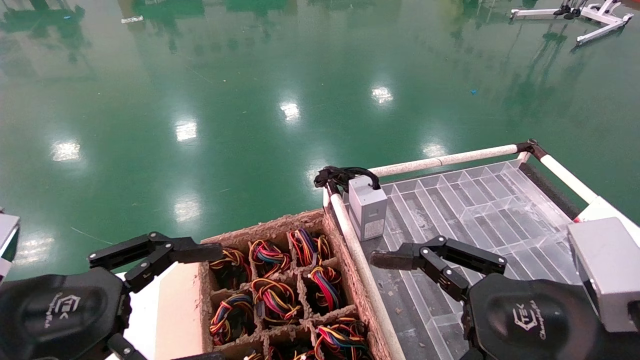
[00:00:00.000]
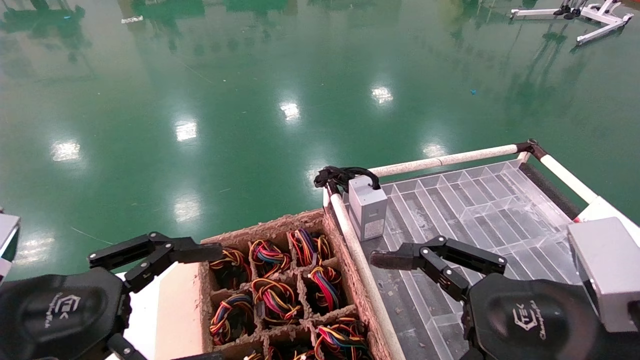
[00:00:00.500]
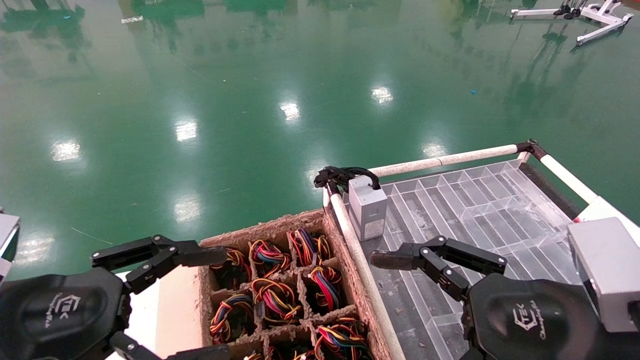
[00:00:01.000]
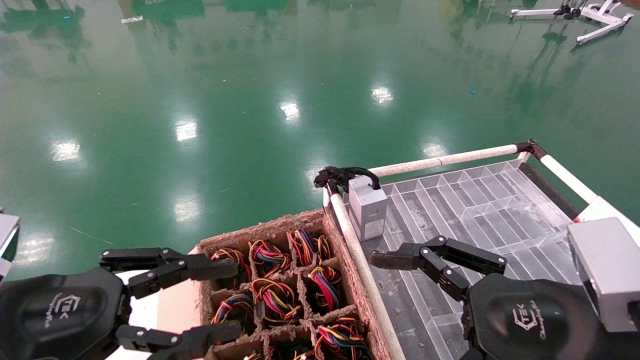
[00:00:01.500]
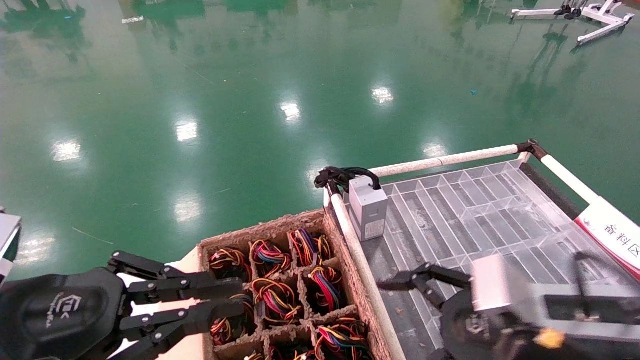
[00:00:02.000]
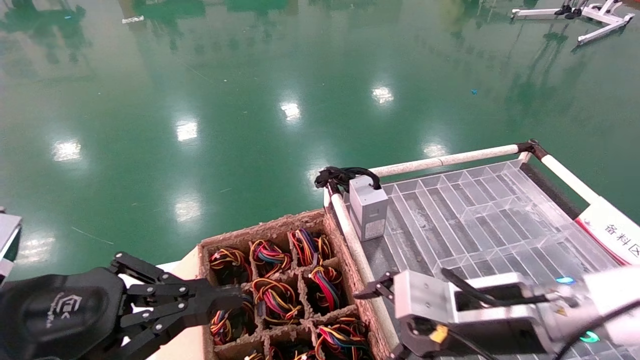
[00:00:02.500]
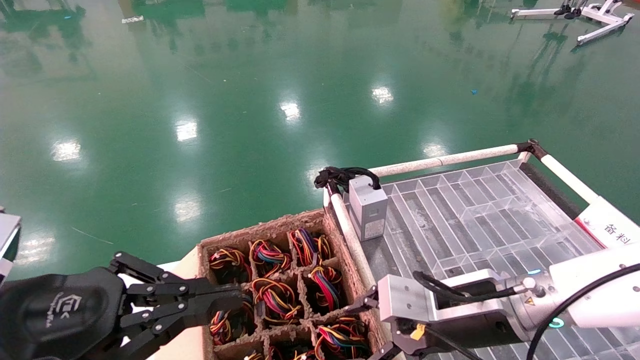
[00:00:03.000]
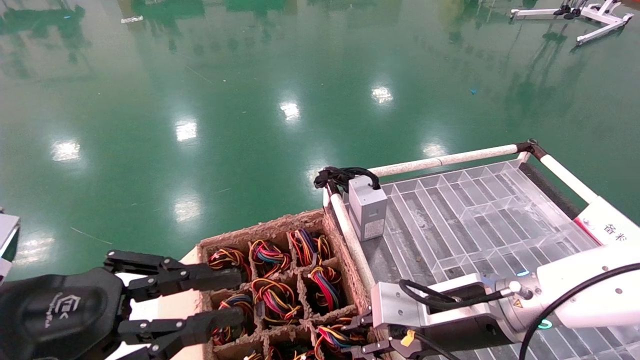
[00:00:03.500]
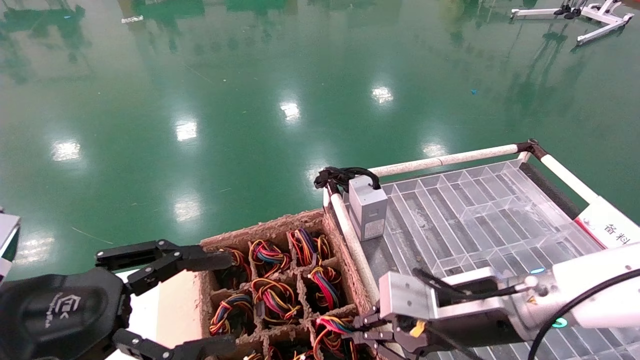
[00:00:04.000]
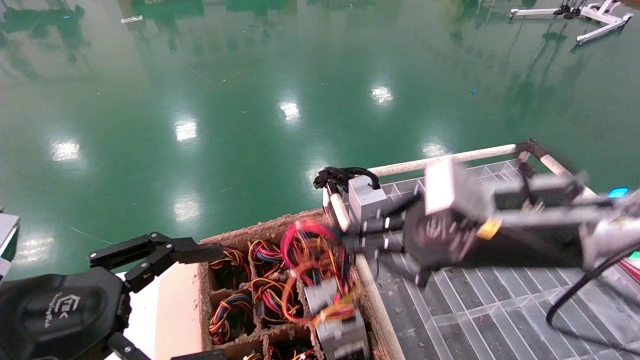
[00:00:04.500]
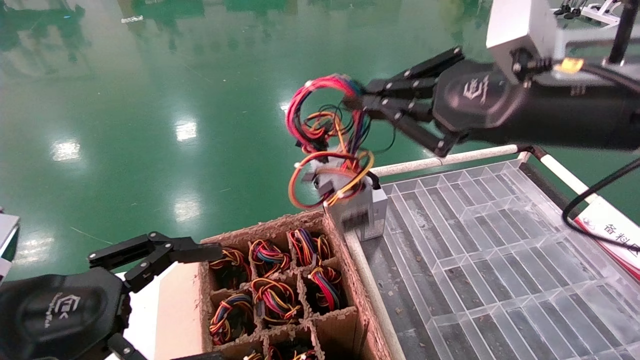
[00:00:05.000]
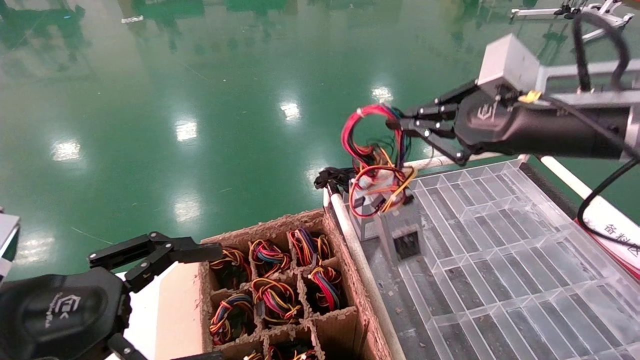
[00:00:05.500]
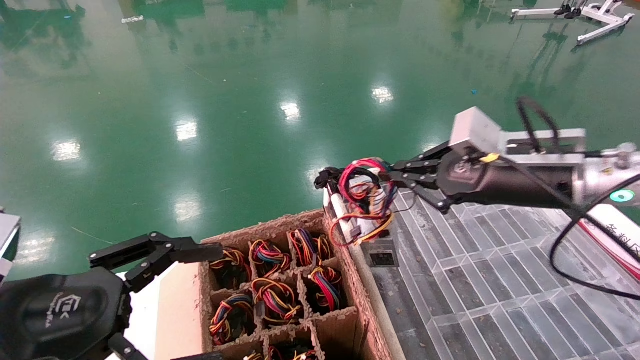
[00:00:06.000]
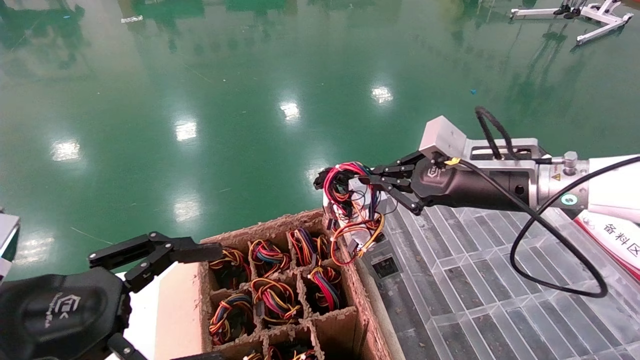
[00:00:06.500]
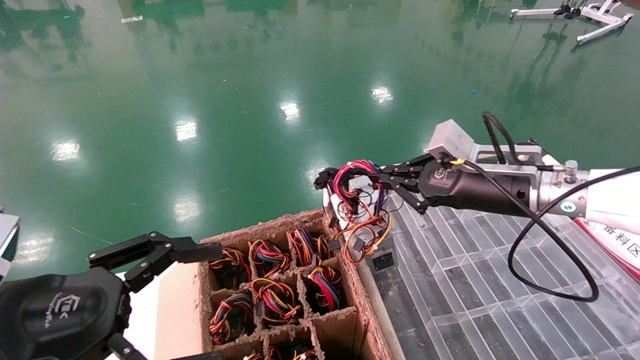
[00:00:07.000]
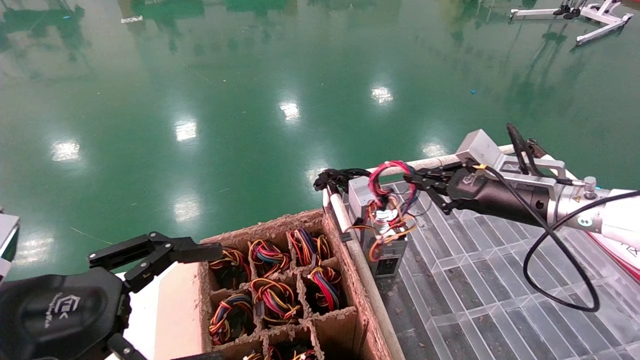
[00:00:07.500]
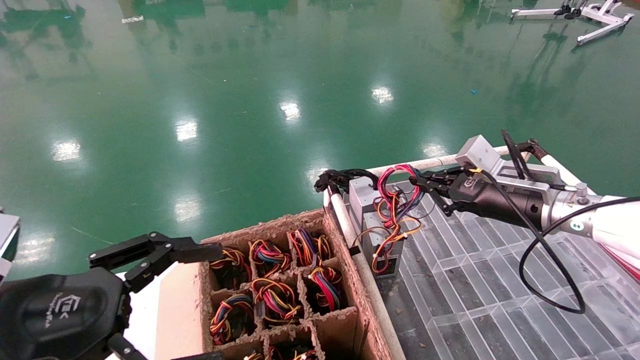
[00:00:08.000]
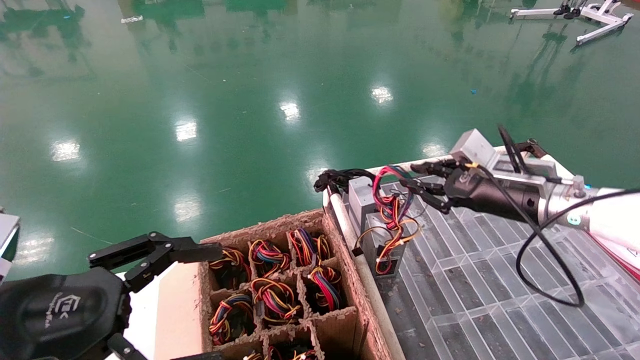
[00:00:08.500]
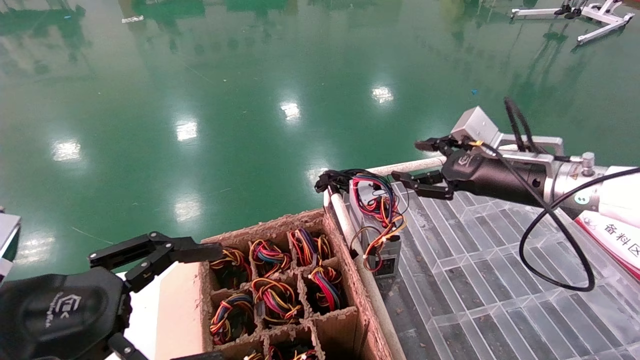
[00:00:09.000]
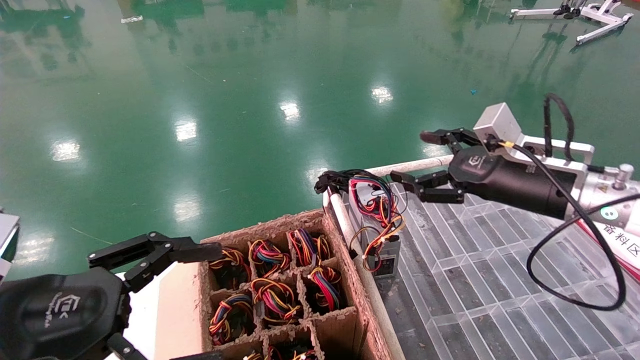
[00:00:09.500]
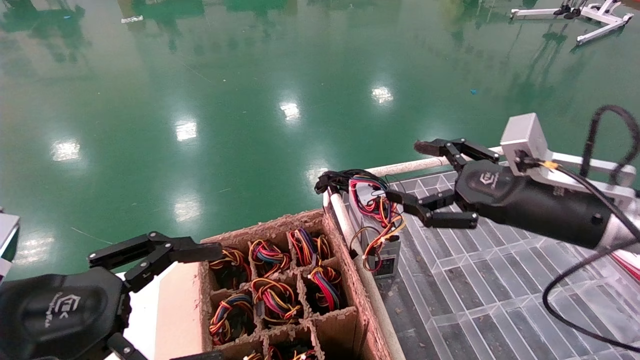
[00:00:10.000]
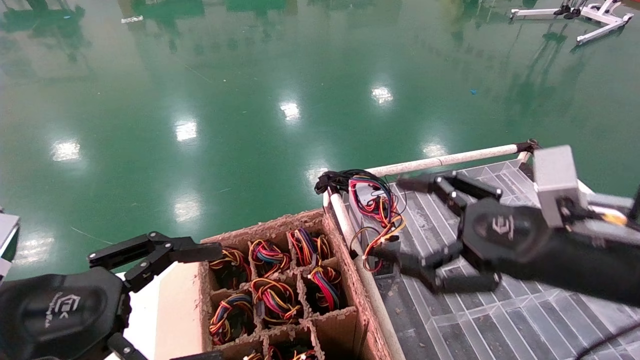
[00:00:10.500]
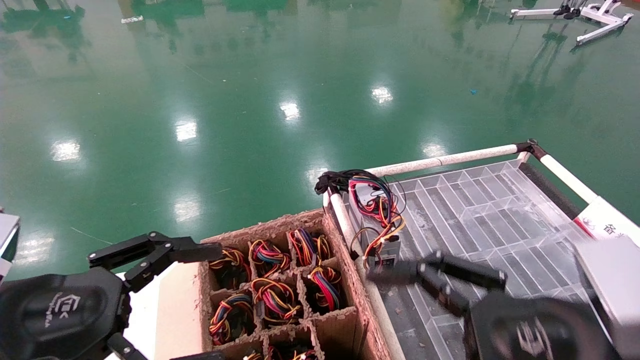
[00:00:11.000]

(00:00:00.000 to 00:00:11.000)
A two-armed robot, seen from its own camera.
Step, 00:00:02.500 - 00:00:03.500: Grab and lift the power supply from the large box.
Step, 00:00:04.000 - 00:00:08.000: Place the power supply on the operating table.
00:00:00.000 - 00:00:02.000: The left gripper closes. Meanwhile the right gripper heads forward, covering some 5 cm.
00:00:02.000 - 00:00:03.500: The right gripper travels forward and to the left by about 10 cm, and closes.
00:00:03.500 - 00:00:05.500: The left gripper opens up. Meanwhile the right gripper shifts some 20 cm upward and to the right.
00:00:05.500 - 00:00:07.500: The right gripper is displaced downward and forward by some 15 cm.
00:00:07.500 - 00:00:09.000: The right gripper opens up.
00:00:09.000 - 00:00:11.000: The right gripper heads backward, covering about 20 cm, and opens up.
